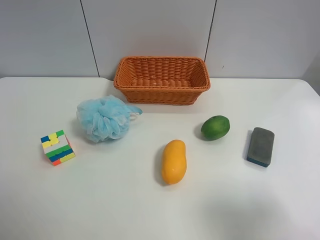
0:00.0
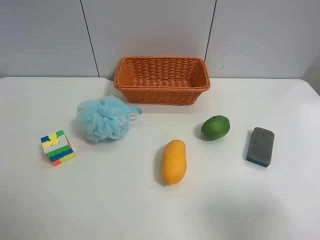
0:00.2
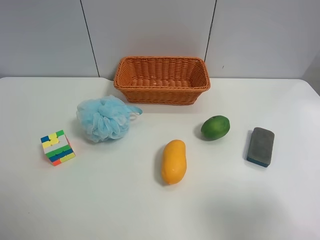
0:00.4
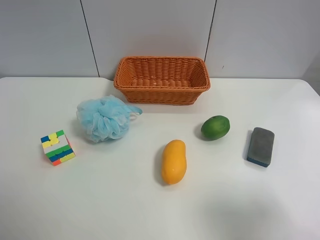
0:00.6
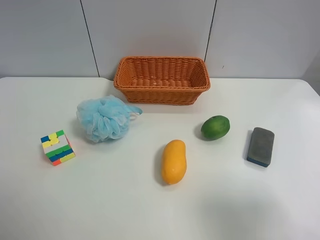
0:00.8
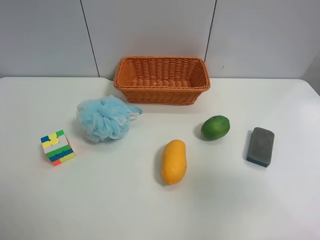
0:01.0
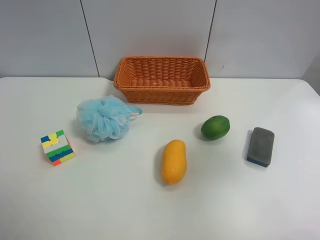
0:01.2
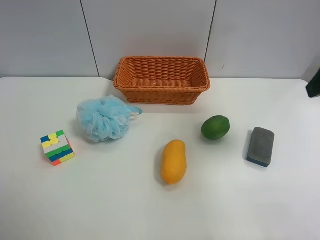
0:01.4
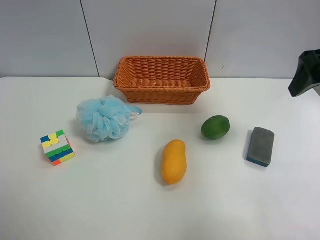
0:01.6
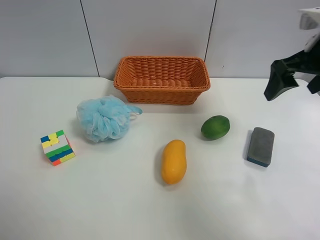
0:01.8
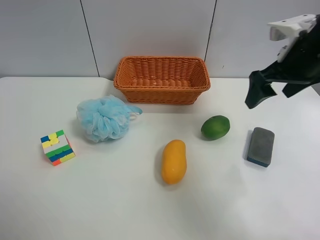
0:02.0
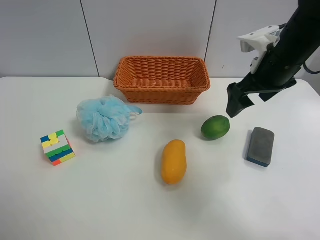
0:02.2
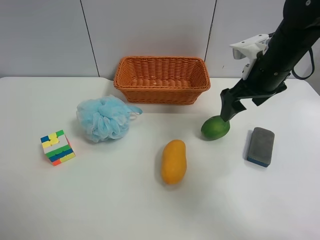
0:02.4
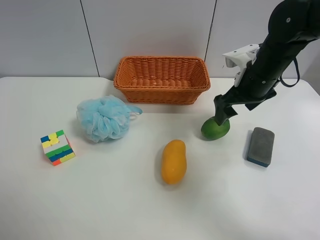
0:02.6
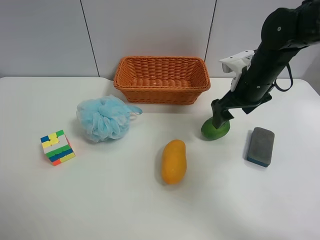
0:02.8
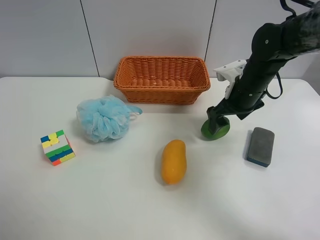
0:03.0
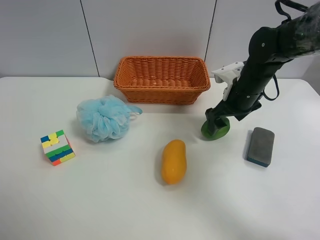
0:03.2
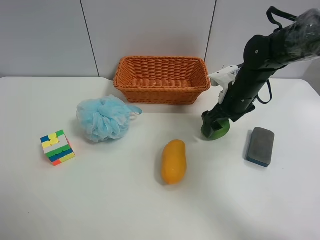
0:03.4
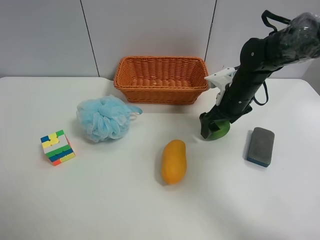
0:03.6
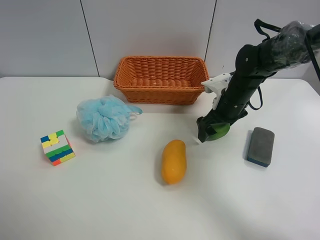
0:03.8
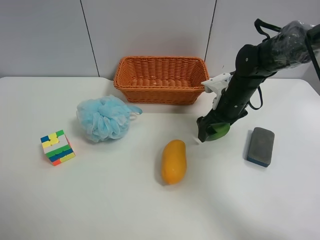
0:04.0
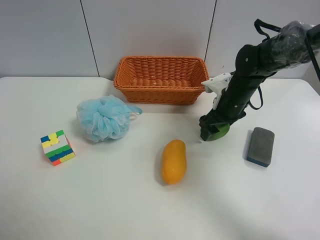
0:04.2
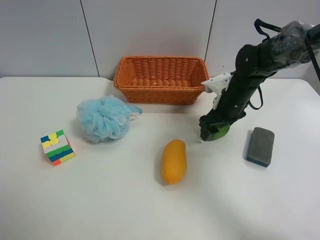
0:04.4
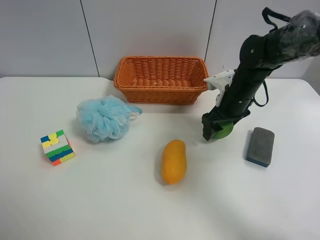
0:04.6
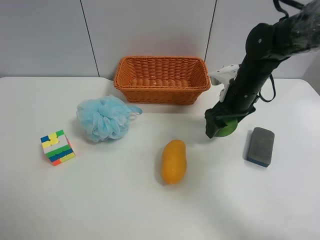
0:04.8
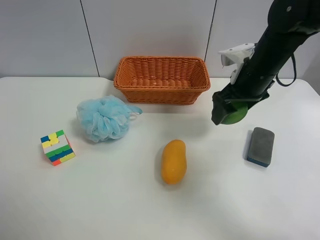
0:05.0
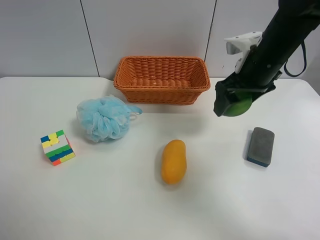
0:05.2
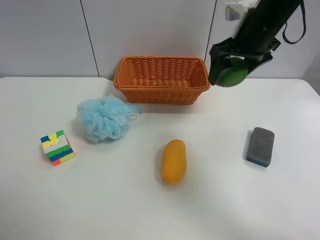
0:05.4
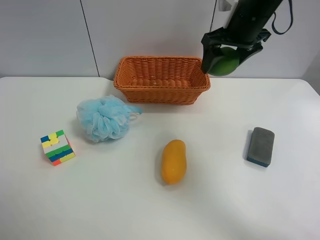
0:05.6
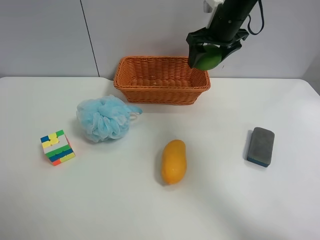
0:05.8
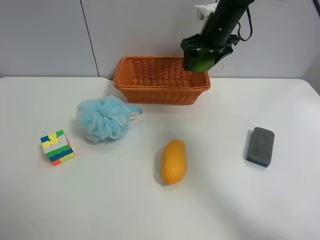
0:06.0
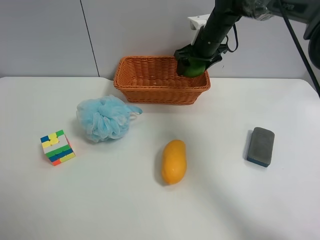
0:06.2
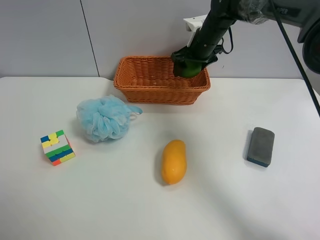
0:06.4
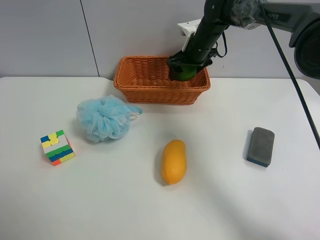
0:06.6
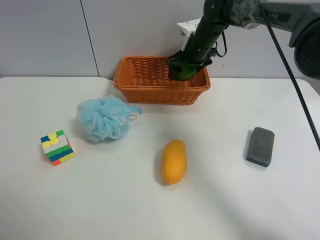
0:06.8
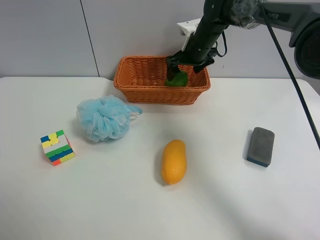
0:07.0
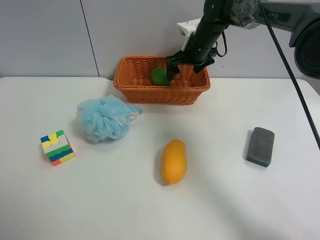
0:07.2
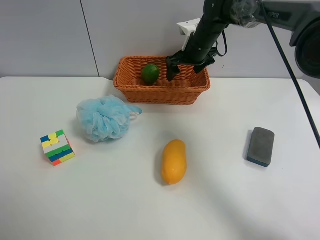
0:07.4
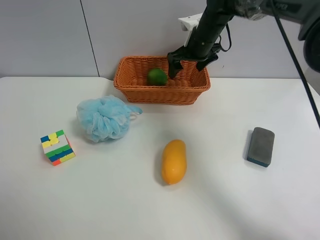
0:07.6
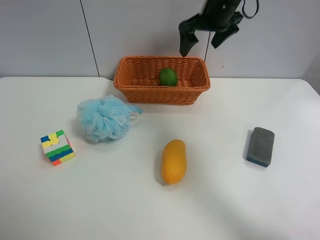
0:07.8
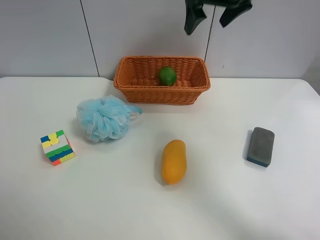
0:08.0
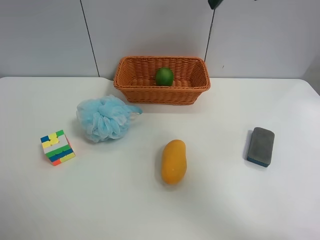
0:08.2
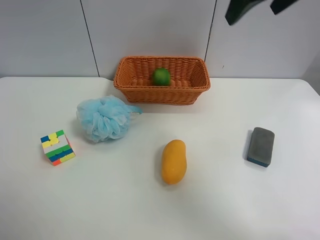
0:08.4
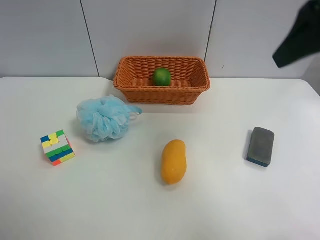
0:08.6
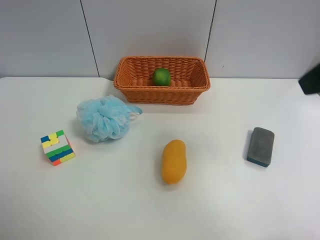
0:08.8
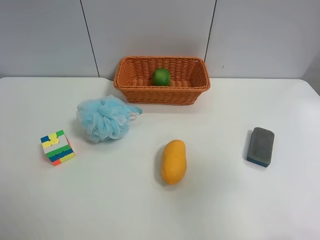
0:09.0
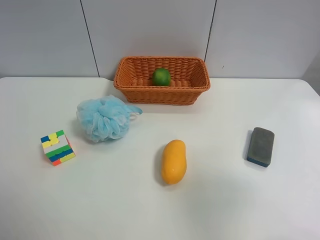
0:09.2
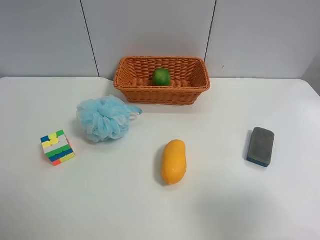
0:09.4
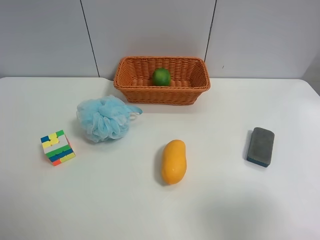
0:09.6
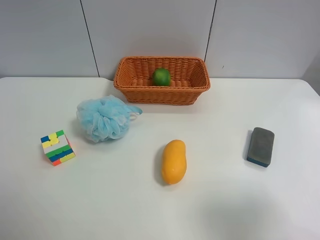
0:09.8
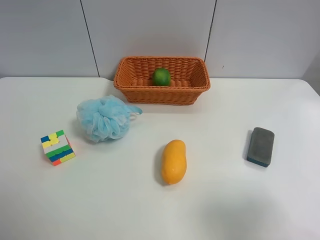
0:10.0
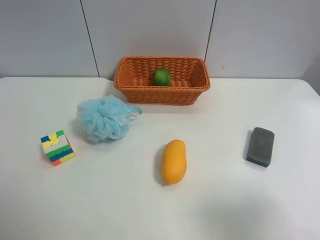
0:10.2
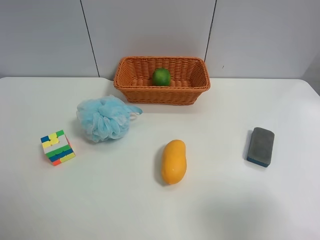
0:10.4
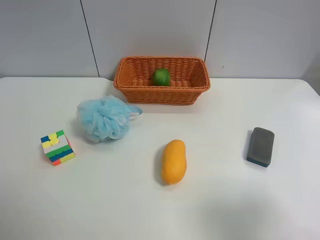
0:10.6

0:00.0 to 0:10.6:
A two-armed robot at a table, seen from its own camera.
Task of the whole recording: Randomly grab green lemon or mangoes from the table and put them in a basket.
Step, 0:00.0 to 0:04.2: Grasp the Lemon with the right gripper.
Step, 0:04.4 to 0:07.8: Place the Lemon into the basket with the right gripper.
0:00.0 to 0:01.6: The right gripper goes some 25 cm forward.
0:01.6 to 0:03.0: The right gripper heads downward, forward and to the left, covering some 20 cm.
0:03.0 to 0:04.6: The right gripper closes its fingers.
0:04.6 to 0:06.0: The right gripper shifts roughly 15 cm forward and upward.
0:06.0 to 0:07.6: The right gripper opens.
0:07.6 to 0:09.0: The right gripper is displaced backward by roughly 40 cm.
0:09.0 to 0:10.6: The right gripper travels downward and backward by roughly 10 cm.
